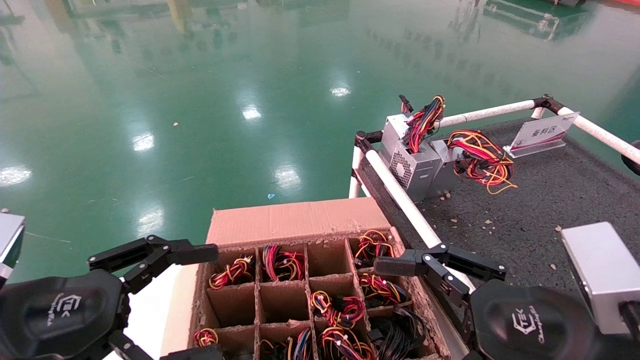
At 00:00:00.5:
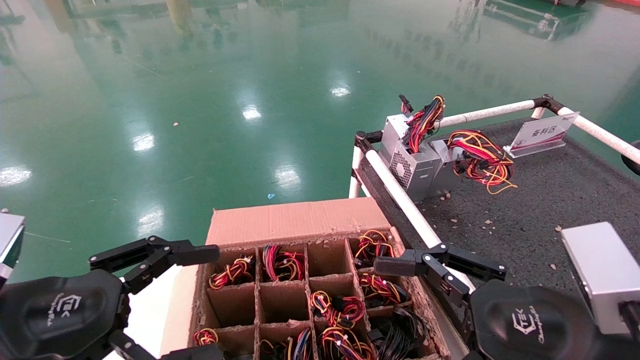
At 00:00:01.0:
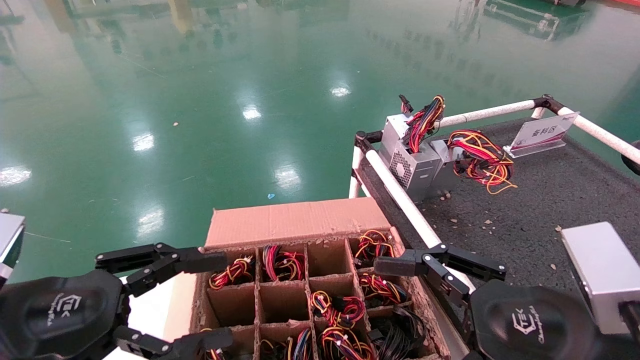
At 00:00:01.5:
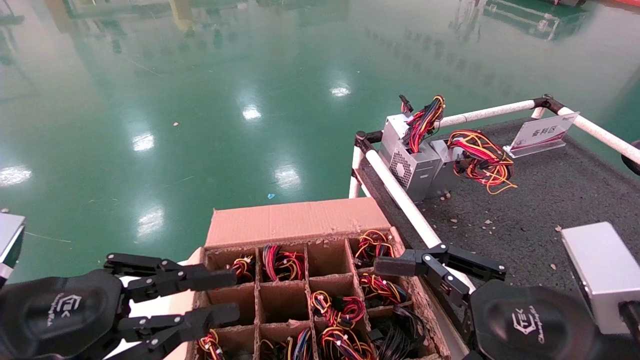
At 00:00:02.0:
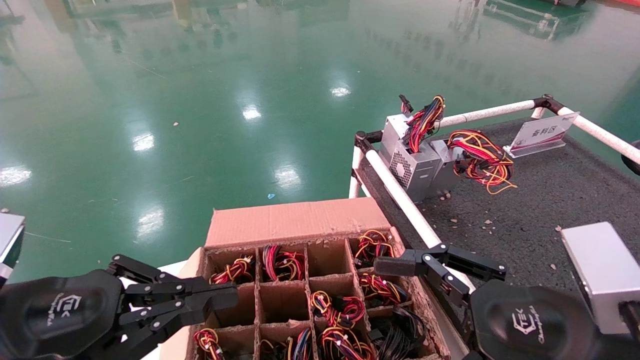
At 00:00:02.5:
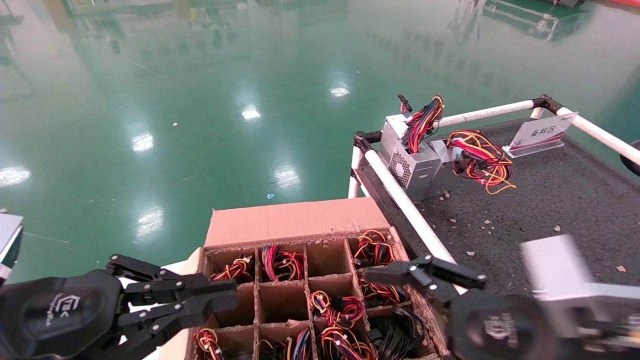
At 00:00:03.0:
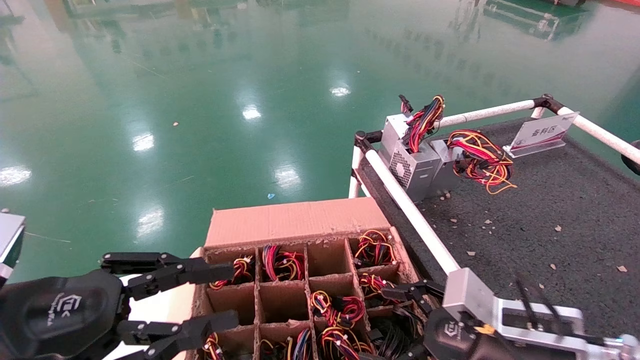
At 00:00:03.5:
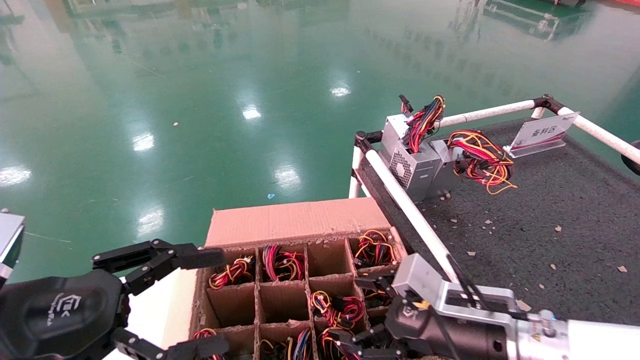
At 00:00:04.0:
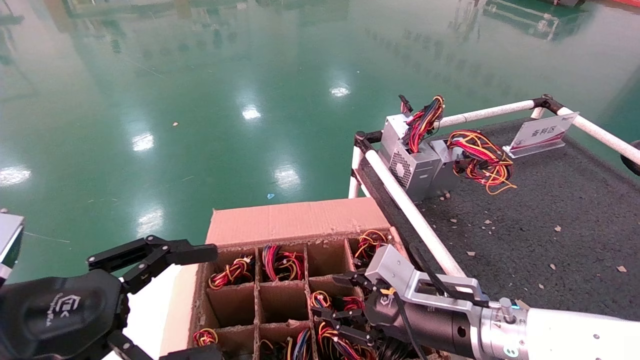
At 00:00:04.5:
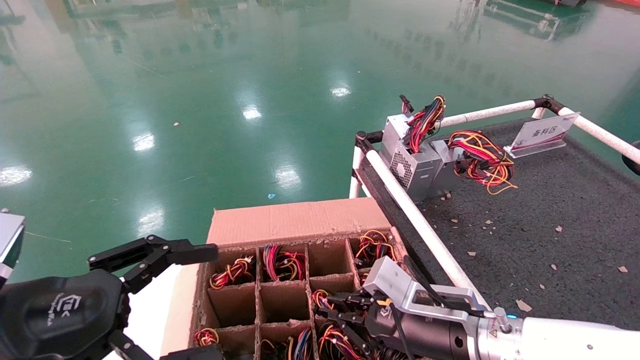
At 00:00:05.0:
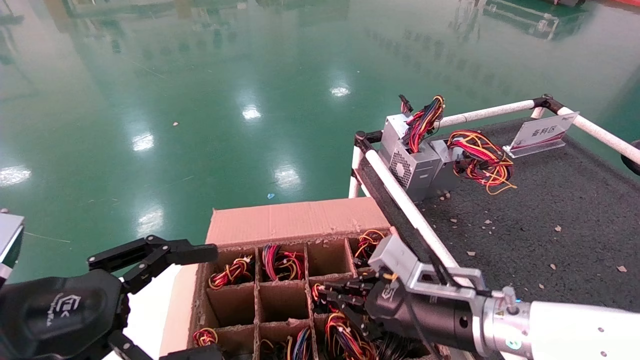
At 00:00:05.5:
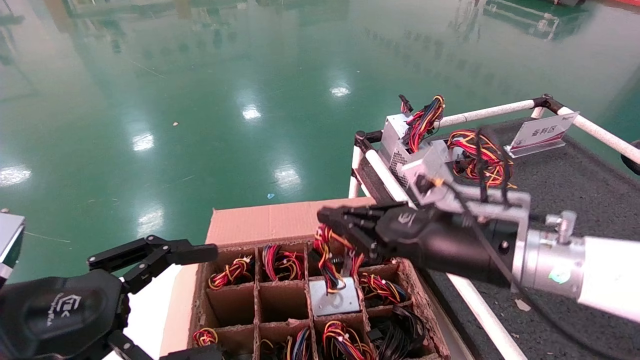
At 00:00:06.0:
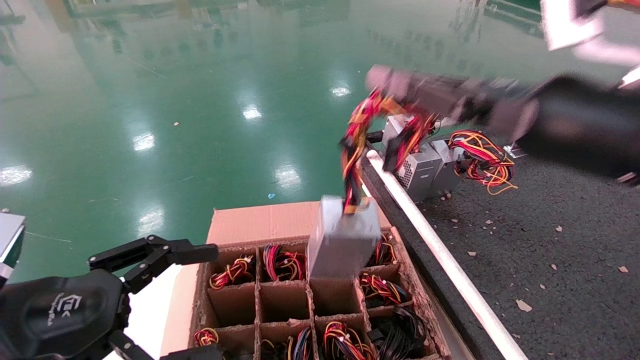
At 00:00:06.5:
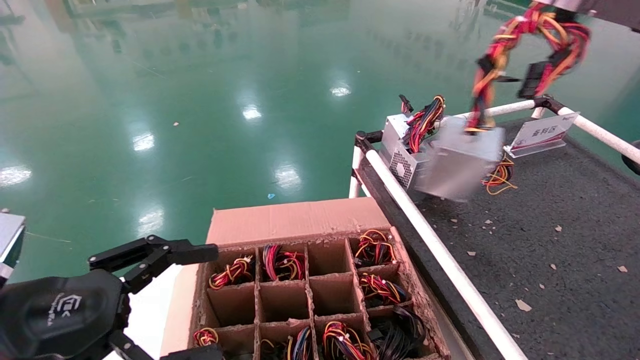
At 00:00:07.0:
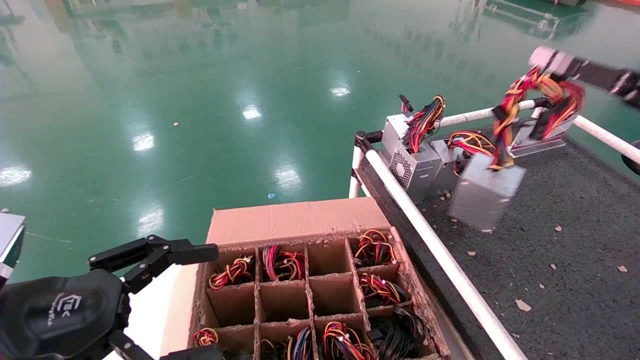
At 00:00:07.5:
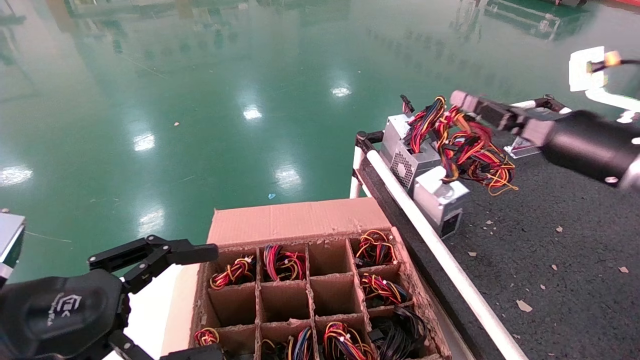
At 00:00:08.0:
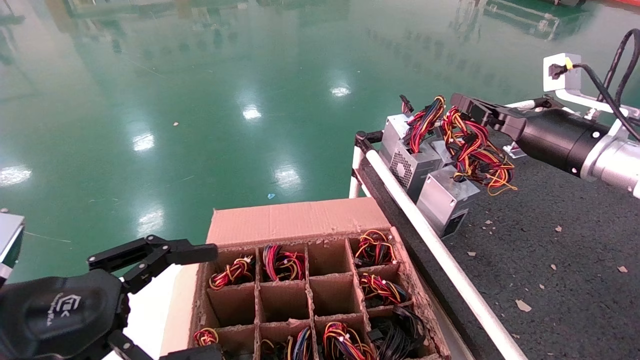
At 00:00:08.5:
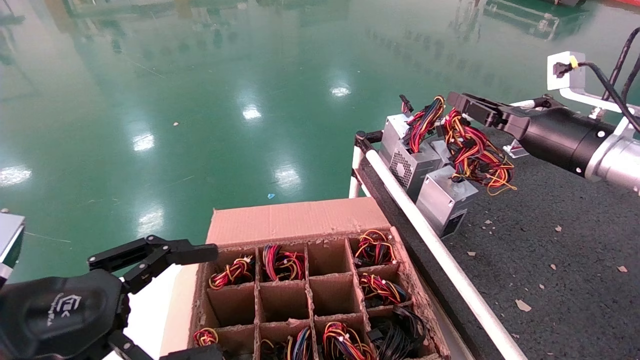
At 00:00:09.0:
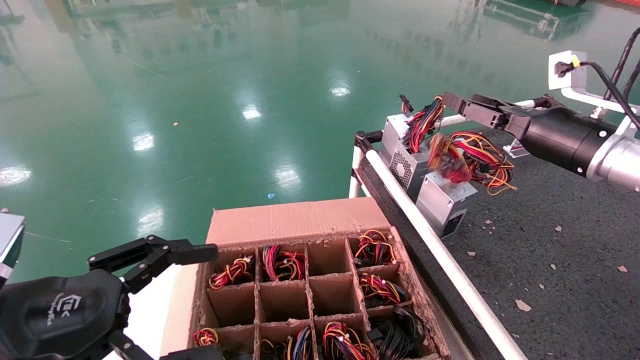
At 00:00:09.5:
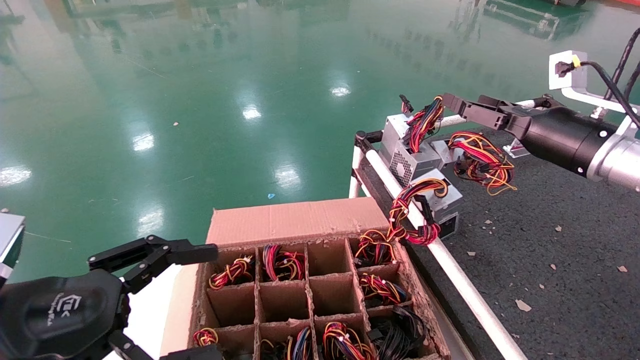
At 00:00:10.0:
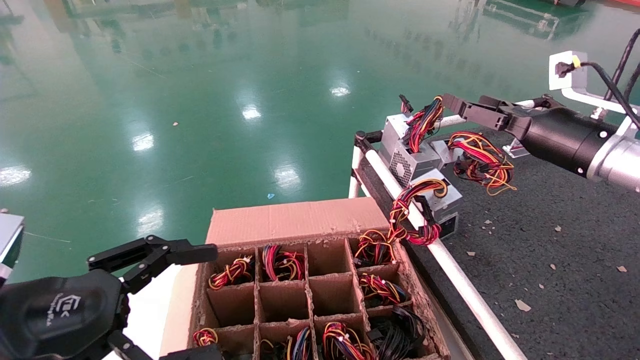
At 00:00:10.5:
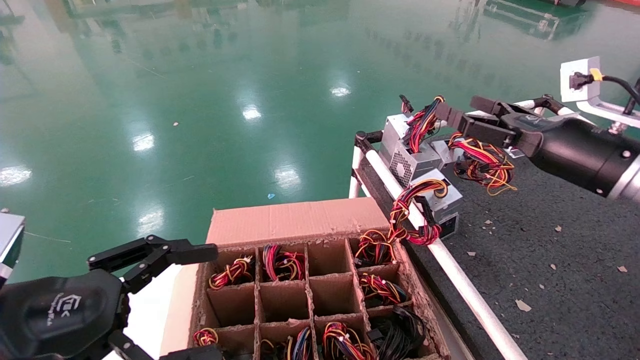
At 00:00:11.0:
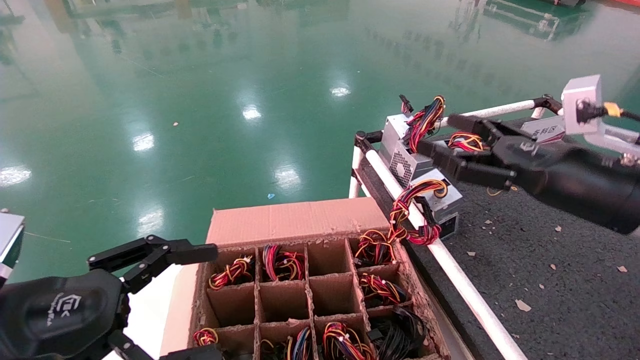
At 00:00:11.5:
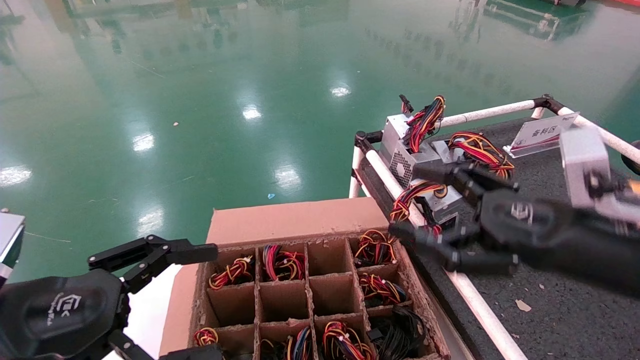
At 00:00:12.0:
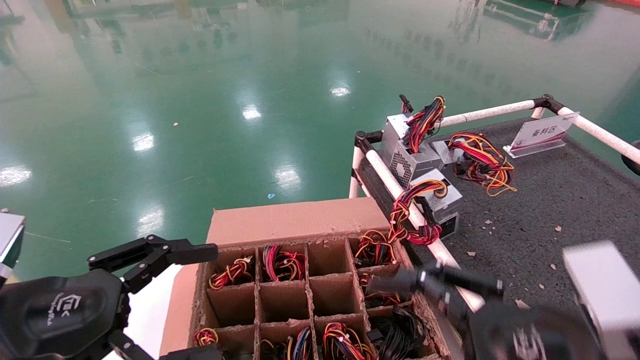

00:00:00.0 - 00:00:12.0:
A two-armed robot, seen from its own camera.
Step, 00:00:03.0 - 00:00:04.5: Grab and lift the power supply from the large box.
Step, 00:00:05.0 - 00:00:08.5: Place the power supply on the operating table.
00:00:00.0 - 00:00:02.0: The left gripper closes its fingers.
00:00:02.0 - 00:00:04.0: The right gripper goes some 20 cm forward, downward and to the left, and closes up. The left gripper opens its fingers.
00:00:04.0 - 00:00:06.0: The right gripper is displaced upward by some 25 cm, and closes its fingers.
00:00:06.0 - 00:00:08.0: The right gripper moves forward and to the right, approximately 20 cm.
00:00:08.0 - 00:00:10.0: The right gripper opens its fingers.
00:00:10.0 - 00:00:12.0: The right gripper goes approximately 25 cm backward, downward and to the left.

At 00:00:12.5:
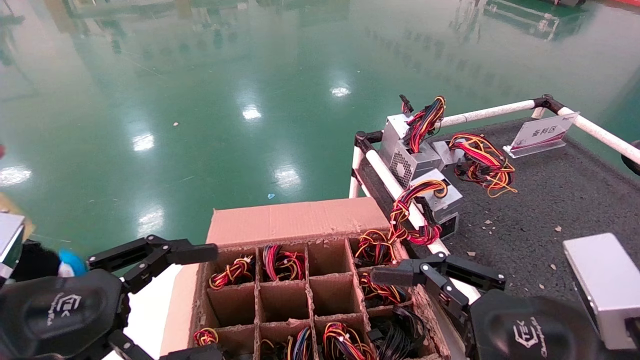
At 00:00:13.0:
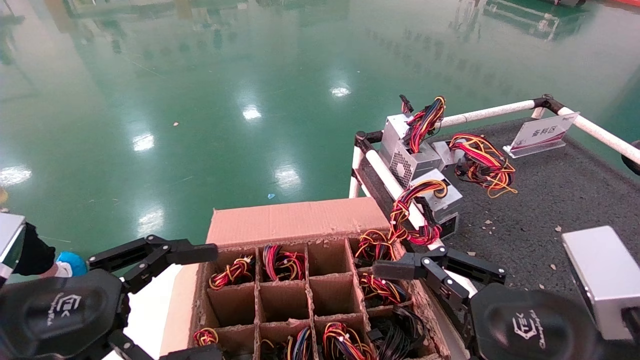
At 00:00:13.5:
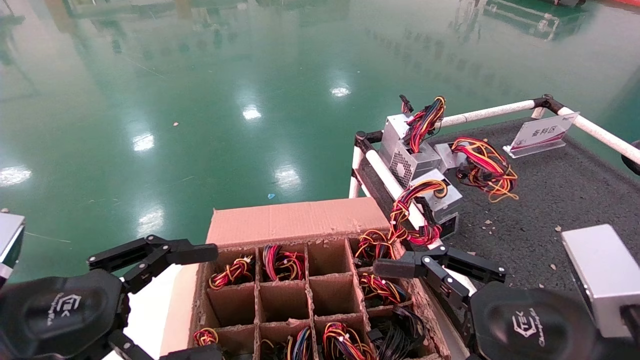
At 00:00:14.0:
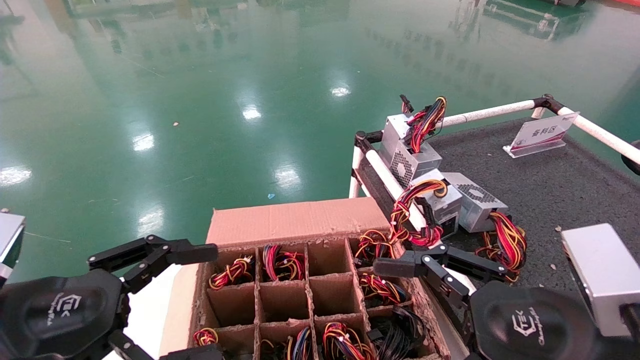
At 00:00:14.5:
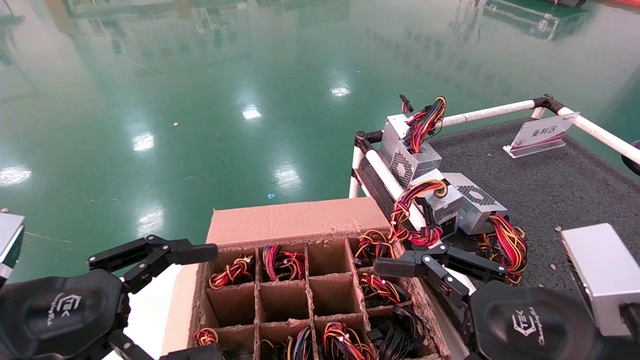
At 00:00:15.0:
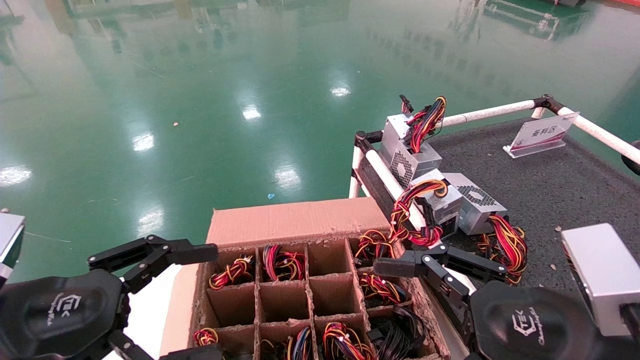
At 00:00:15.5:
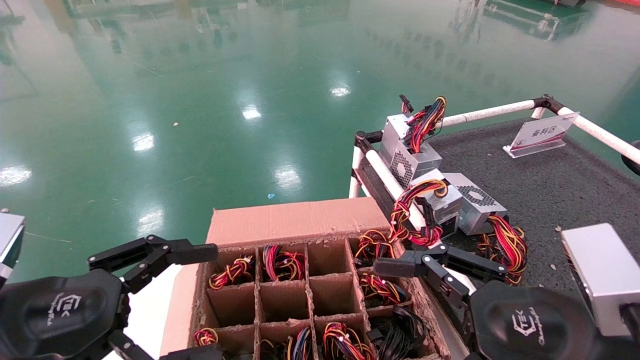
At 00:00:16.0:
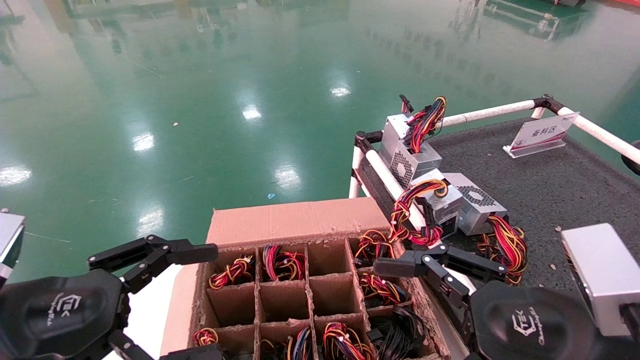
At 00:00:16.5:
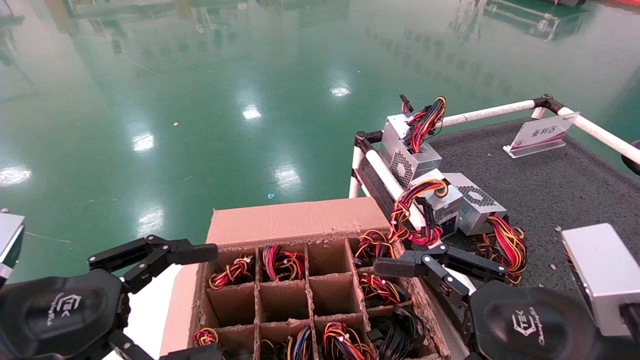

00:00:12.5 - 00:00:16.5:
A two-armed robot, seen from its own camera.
00:00:12.5 - 00:00:16.5: The two grippers keep their place.

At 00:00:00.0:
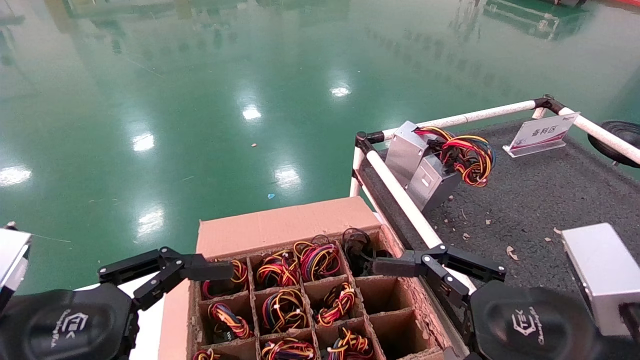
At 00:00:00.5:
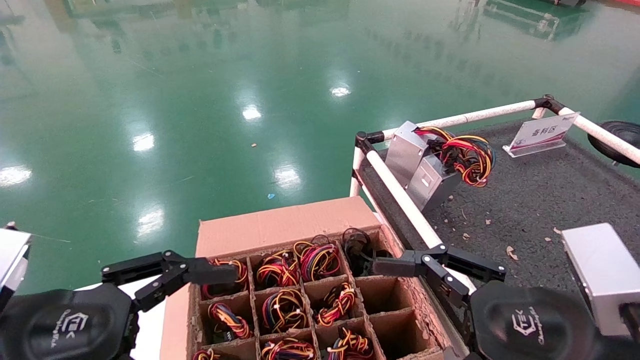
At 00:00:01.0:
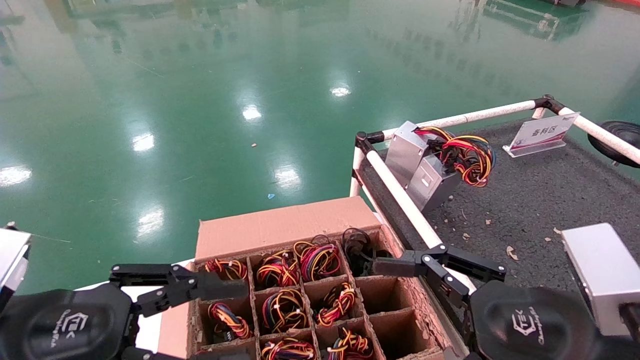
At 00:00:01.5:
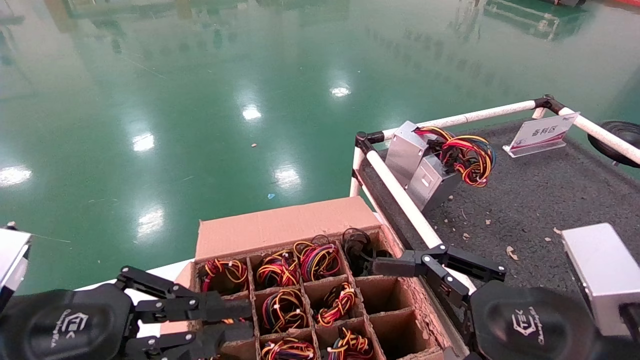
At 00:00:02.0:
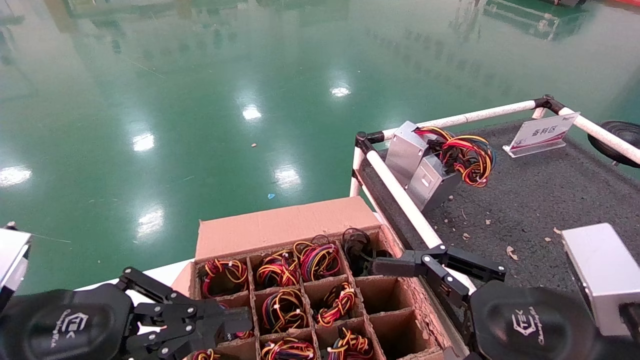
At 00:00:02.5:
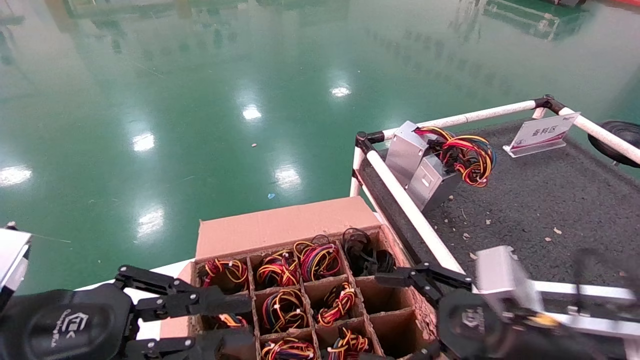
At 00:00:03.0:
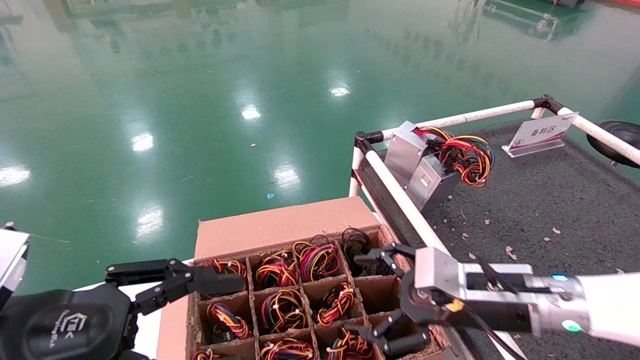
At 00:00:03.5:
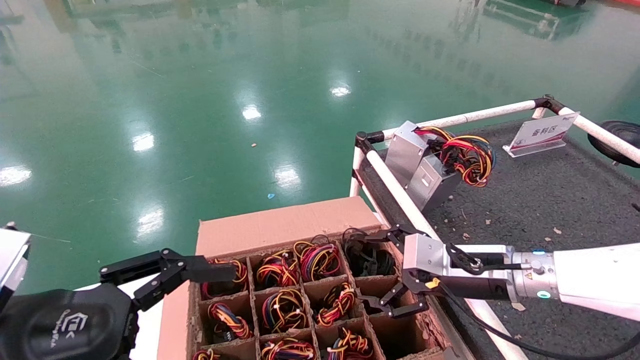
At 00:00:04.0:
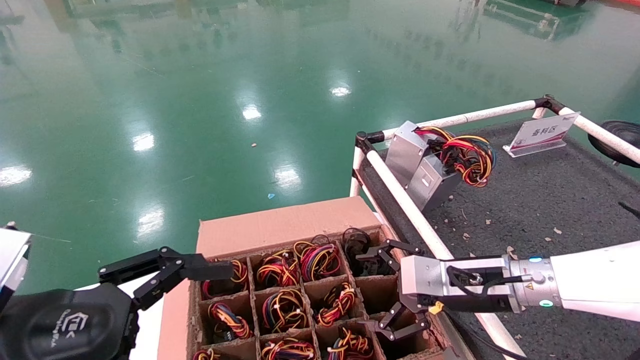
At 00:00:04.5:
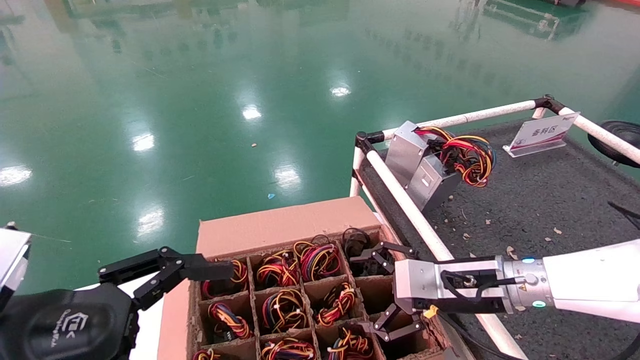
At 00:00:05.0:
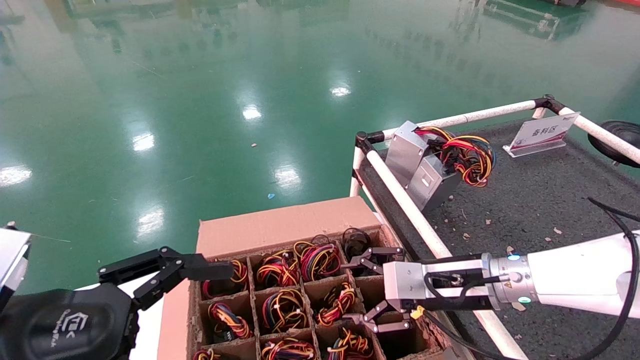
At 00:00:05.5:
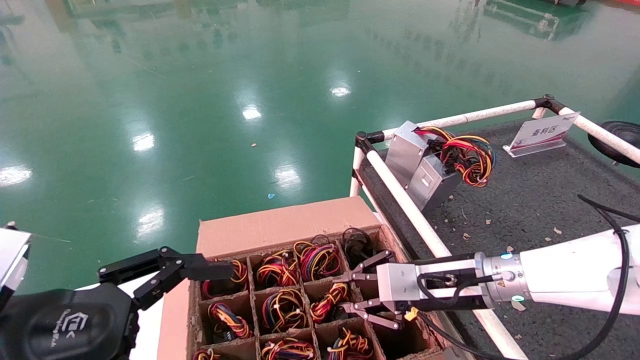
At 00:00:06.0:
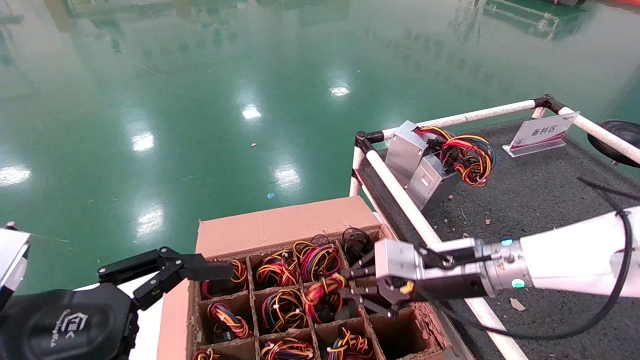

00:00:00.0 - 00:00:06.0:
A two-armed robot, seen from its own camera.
Step, 00:00:02.5 - 00:00:05.5: Grab and lift the power supply from the large box.
00:00:00.0 - 00:00:02.0: The left gripper closes its fingers.
00:00:02.0 - 00:00:04.0: The left gripper opens its fingers; the right gripper travels forward by about 20 cm.
00:00:04.0 - 00:00:06.0: The right gripper closes up.
